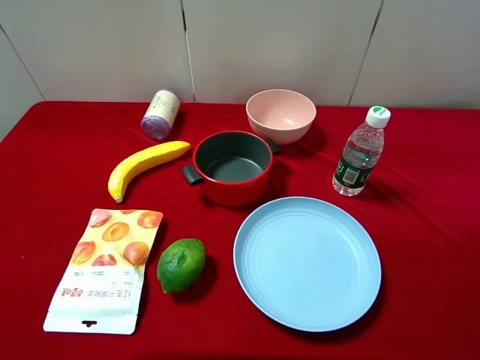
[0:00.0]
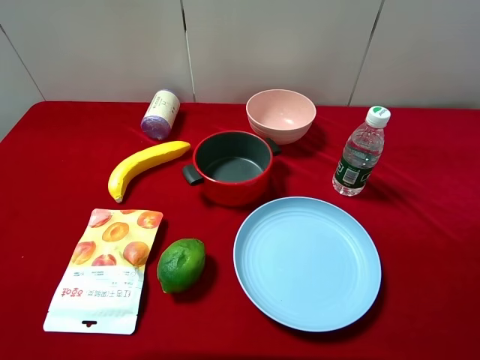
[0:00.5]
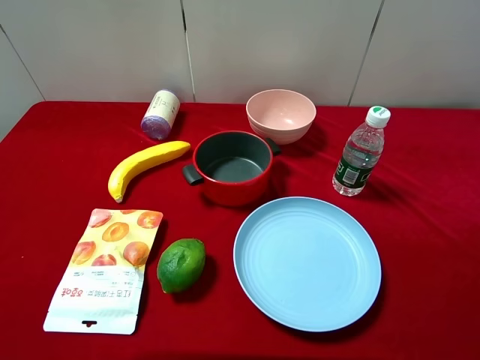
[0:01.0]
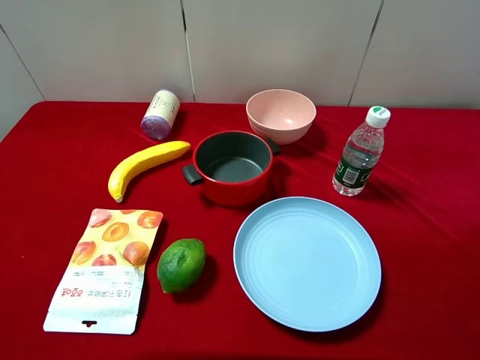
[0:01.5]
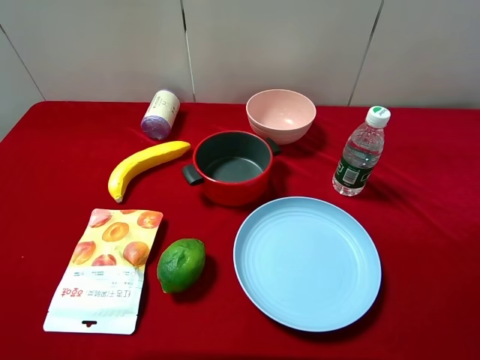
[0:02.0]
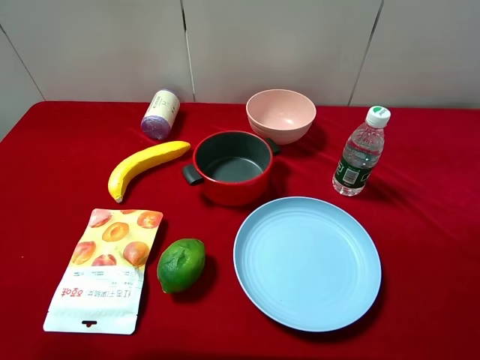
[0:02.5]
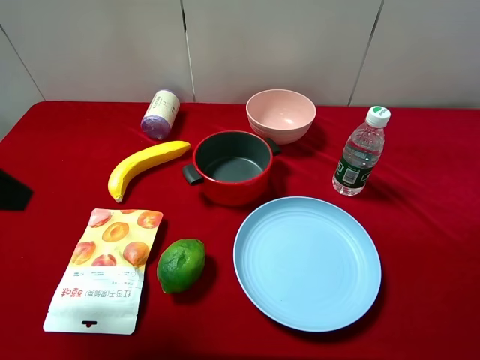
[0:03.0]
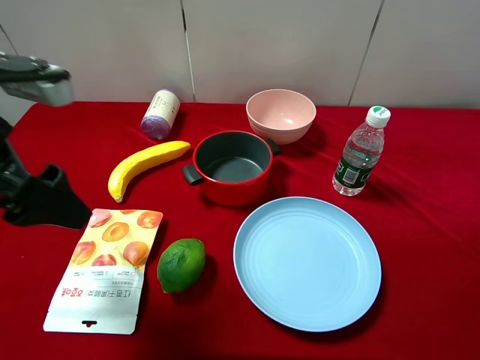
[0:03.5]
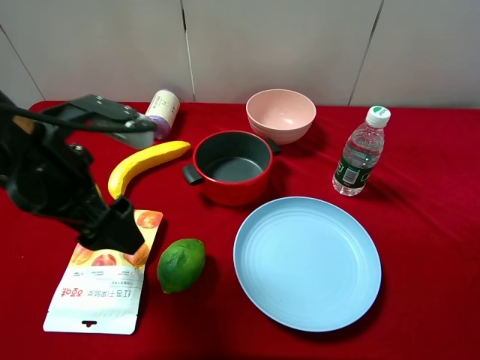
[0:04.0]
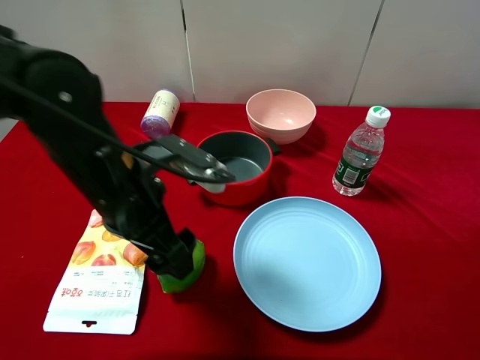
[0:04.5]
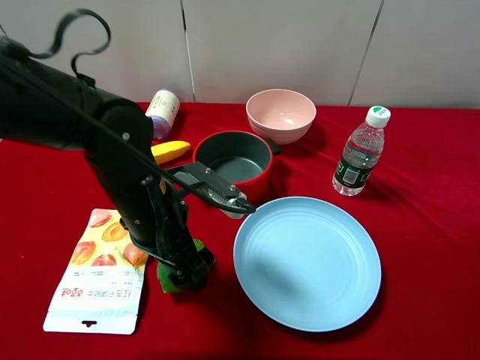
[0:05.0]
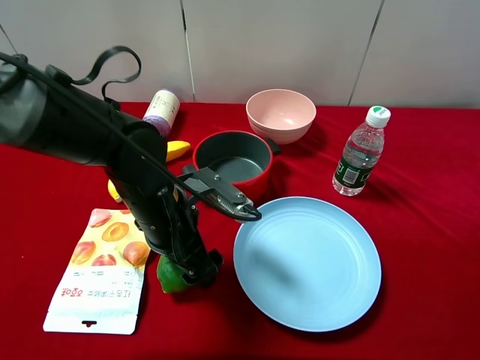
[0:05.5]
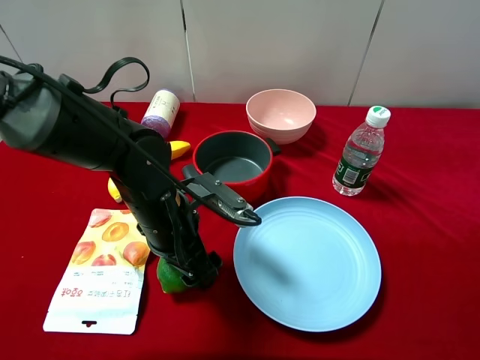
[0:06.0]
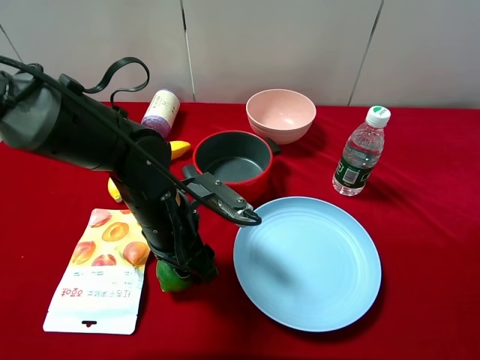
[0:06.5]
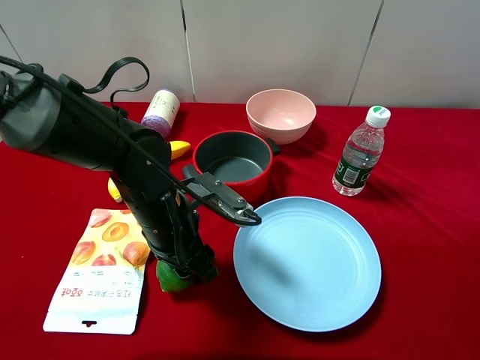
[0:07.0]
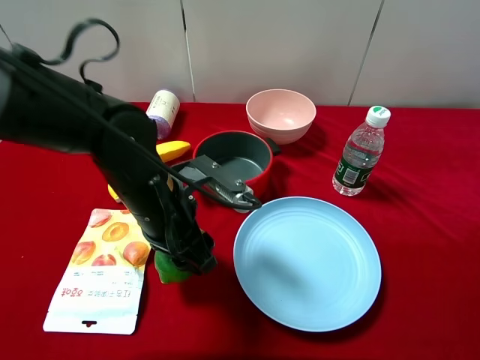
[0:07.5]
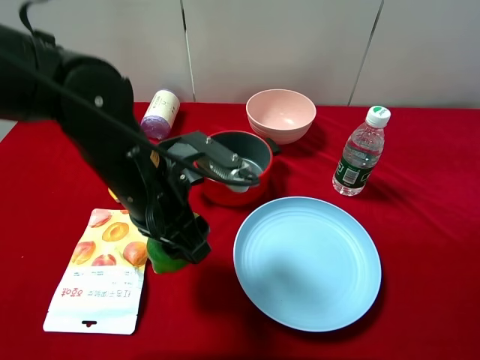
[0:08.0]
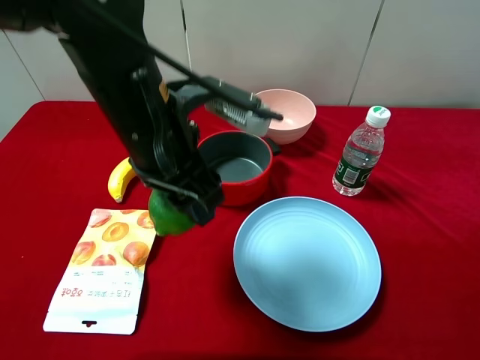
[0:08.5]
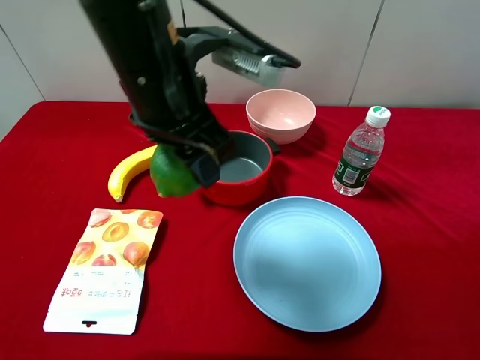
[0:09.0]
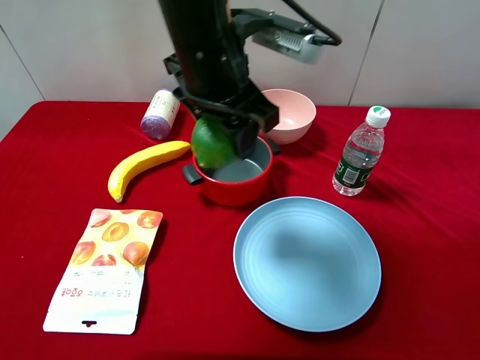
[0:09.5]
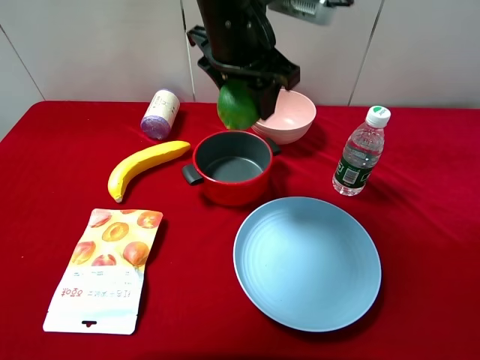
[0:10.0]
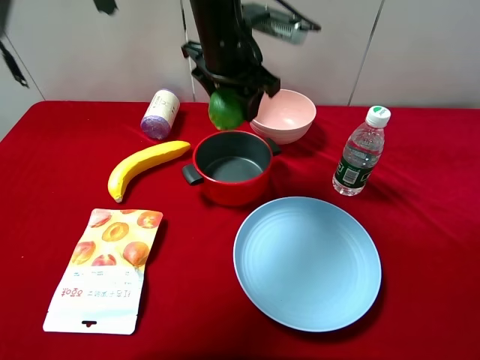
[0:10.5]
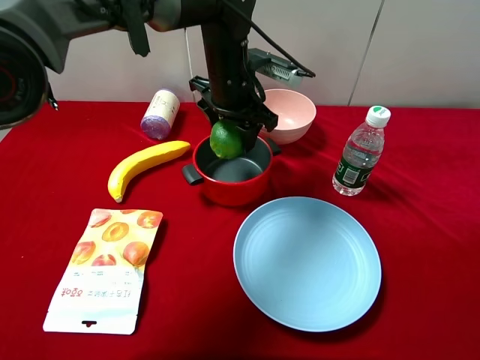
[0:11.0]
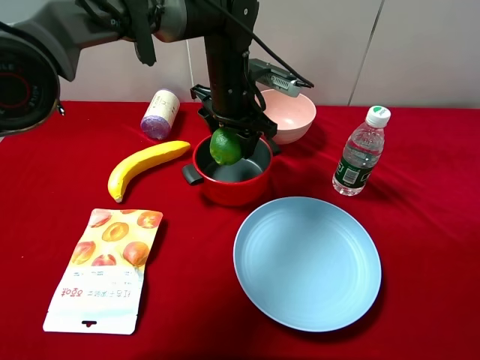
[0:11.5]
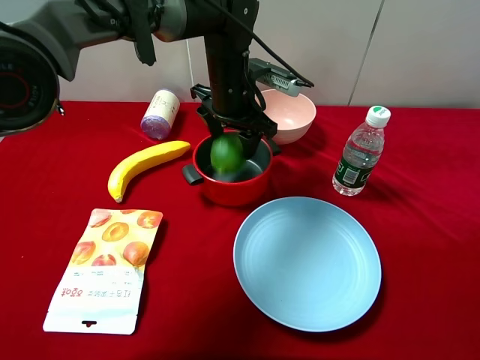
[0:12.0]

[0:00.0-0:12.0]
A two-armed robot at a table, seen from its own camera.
Task of the whole recording: pick up an item with a gripper and place it in a random container on the desktop.
0:02.0 to 0:04.0: The left gripper goes approximately 25 cm forward, to the right and downward.
0:04.0 to 0:06.0: The left gripper is displaced downward and to the right by some 15 cm.
0:06.0 to 0:08.0: The left gripper heads upward, covering about 10 cm, and closes its fingers.
0:08.0 to 0:10.0: The left gripper travels forward, upward and to the right by approximately 20 cm.
0:10.0 to 0:12.0: The left gripper heads downward and forward, covering about 10 cm.

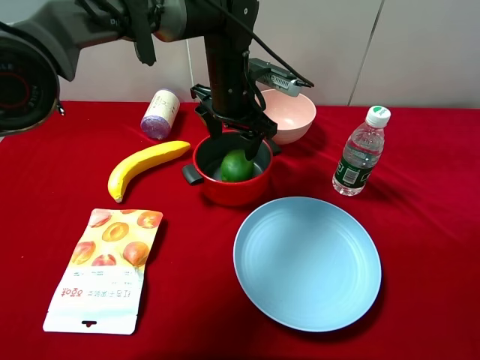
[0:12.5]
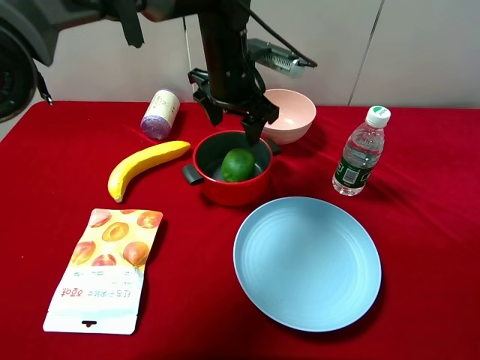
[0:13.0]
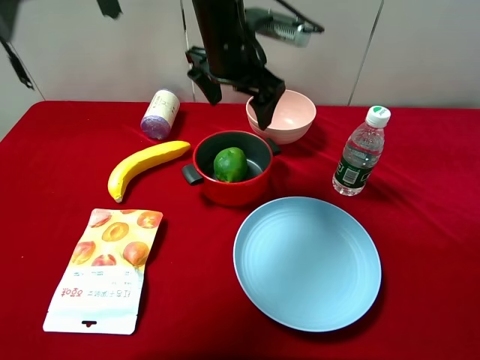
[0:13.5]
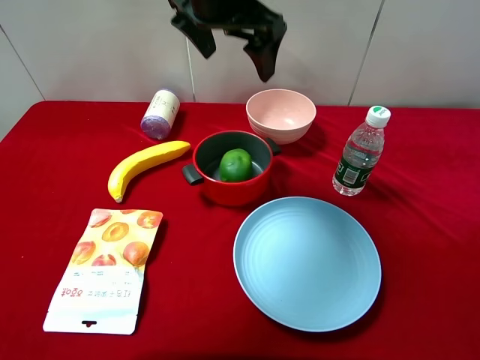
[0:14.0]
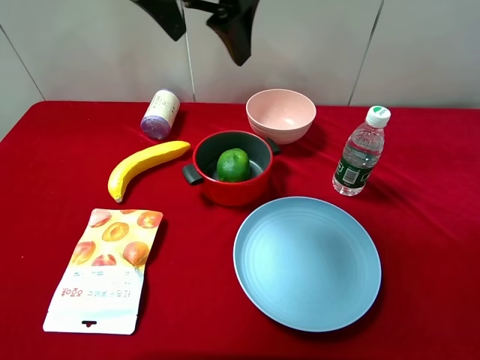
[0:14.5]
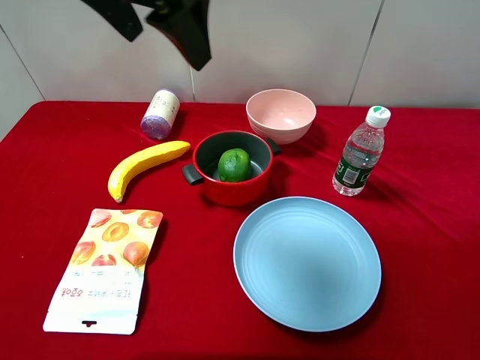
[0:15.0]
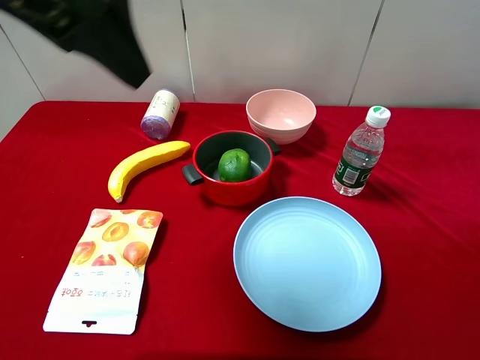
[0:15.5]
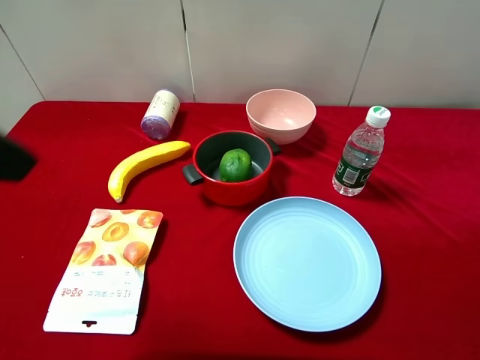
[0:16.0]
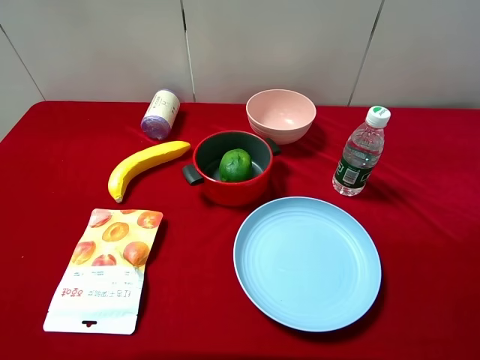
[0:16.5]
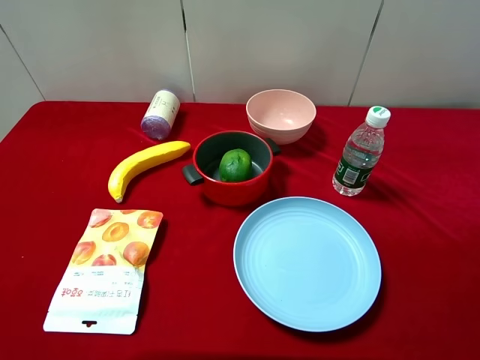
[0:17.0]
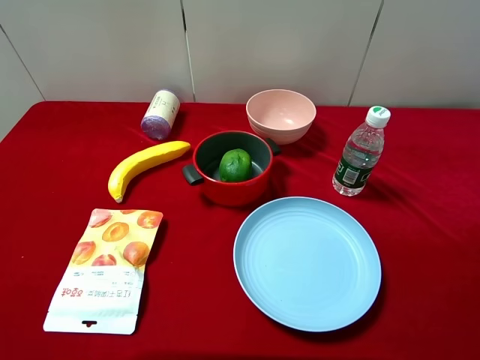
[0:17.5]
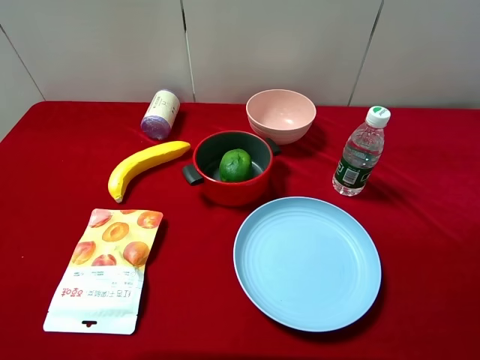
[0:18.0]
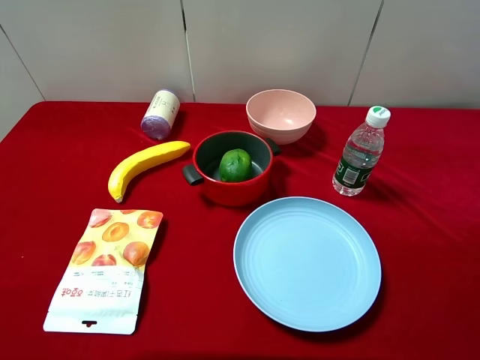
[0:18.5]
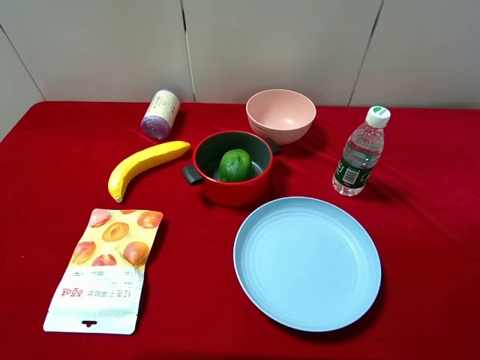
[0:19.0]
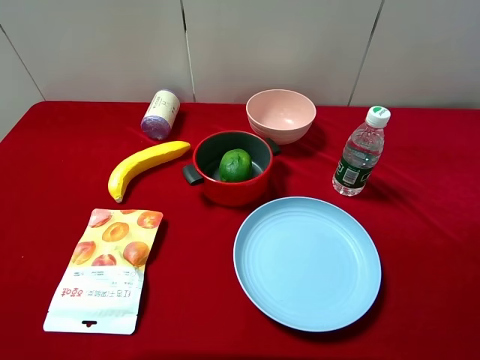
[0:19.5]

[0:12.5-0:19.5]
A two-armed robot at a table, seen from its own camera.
Task of the whole recording: pick up an item with a gripper and place it in a random container on the desktop.
0:12.5 to 0:14.5: The left gripper shifts approximately 20 cm upward and backward, and opens.
0:14.5 to 0:16.0: The left gripper travels backward and to the left by some 25 cm.

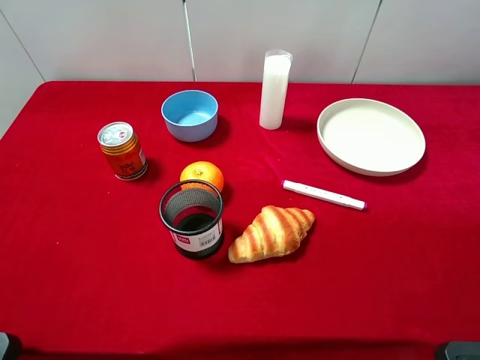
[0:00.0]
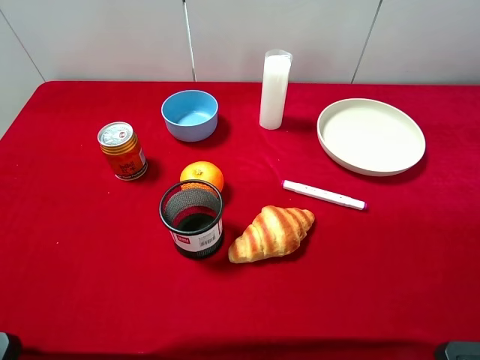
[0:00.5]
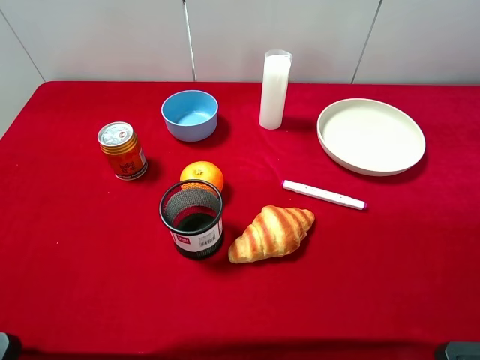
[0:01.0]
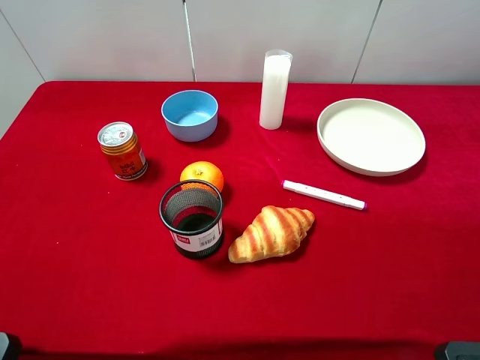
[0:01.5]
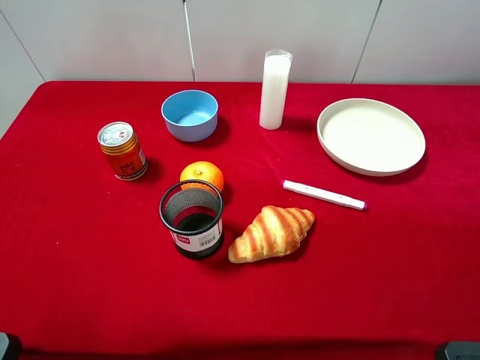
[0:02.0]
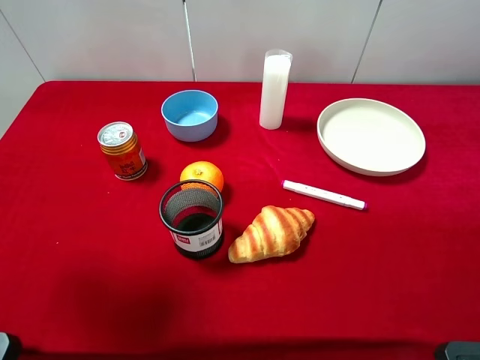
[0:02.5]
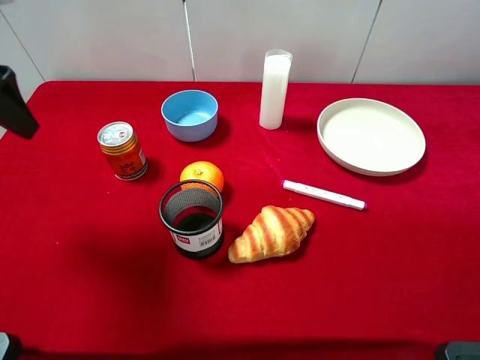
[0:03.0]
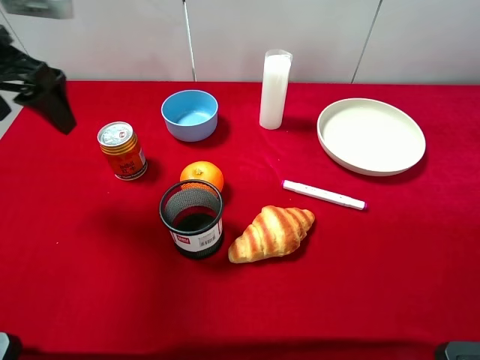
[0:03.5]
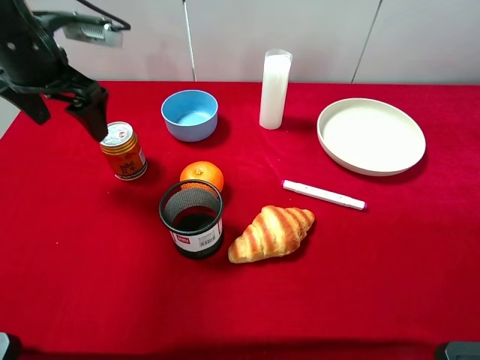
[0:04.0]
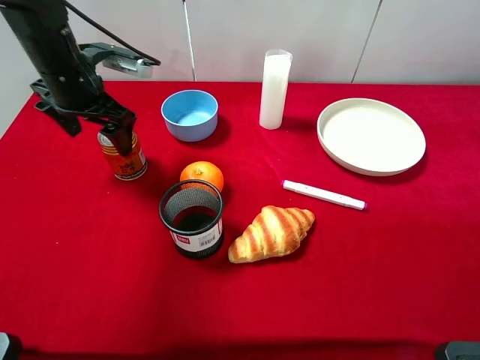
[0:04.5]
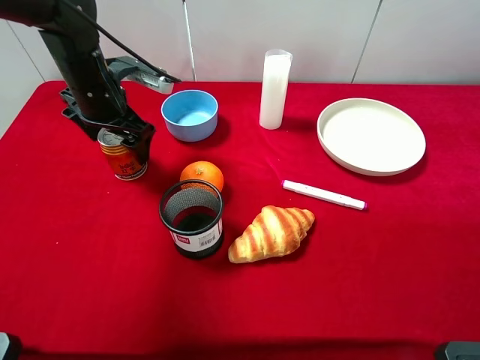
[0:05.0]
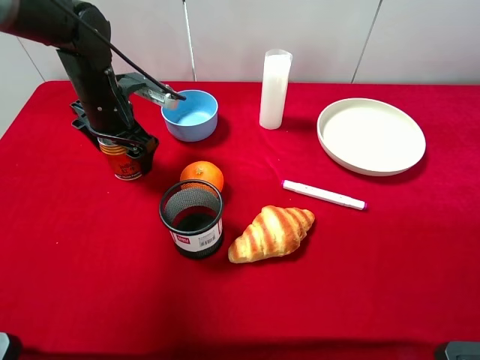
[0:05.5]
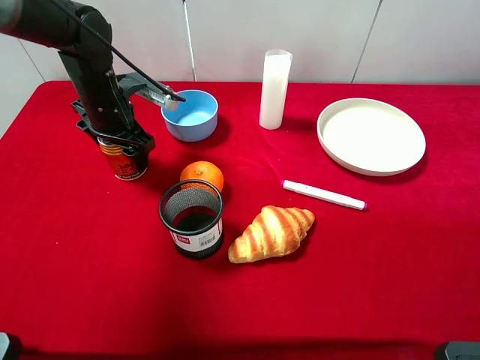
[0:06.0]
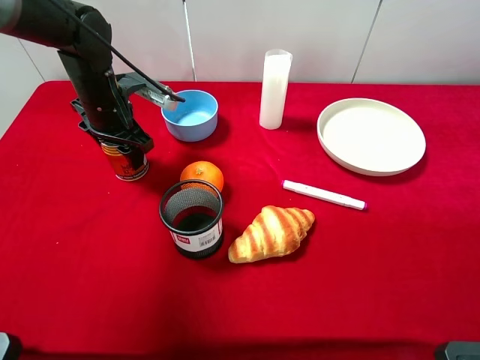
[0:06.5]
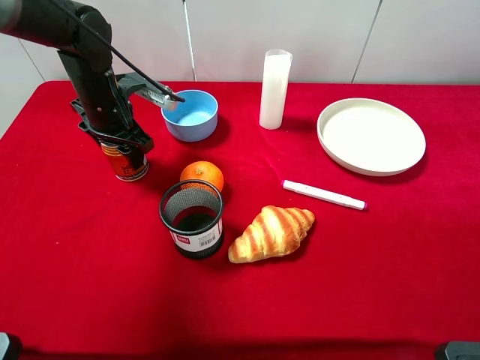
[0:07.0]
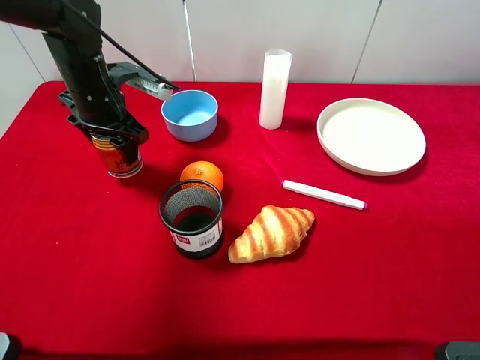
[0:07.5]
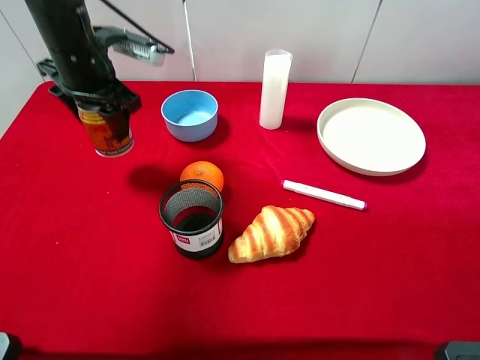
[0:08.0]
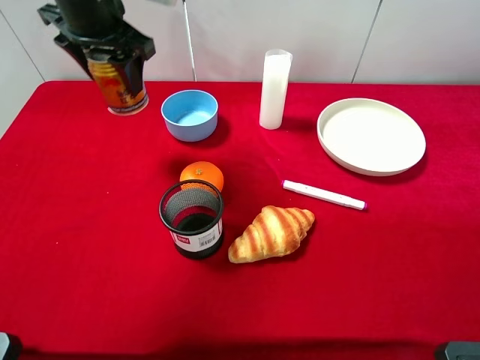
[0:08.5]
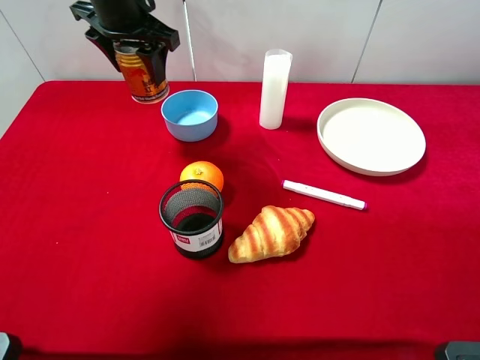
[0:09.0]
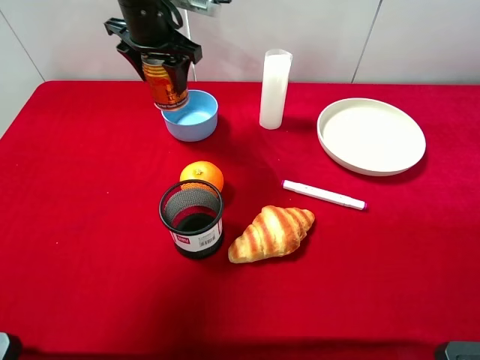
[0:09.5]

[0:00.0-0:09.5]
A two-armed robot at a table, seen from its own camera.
Task of the whole recording: pick up an item with a gripper and place it in a random container on the desktop.
0:02.0 to 0:04.0: The left gripper heads forward and downward, covering roughly 25 cm.
0:04.0 to 0:05.5: The left gripper goes approximately 10 cm downward.
0:05.5 to 0:07.5: The left gripper closes up.
0:07.5 to 0:09.5: The left gripper moves forward, to the right and upward, some 15 cm.
